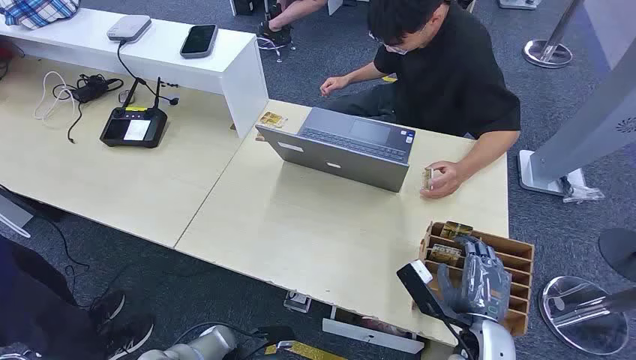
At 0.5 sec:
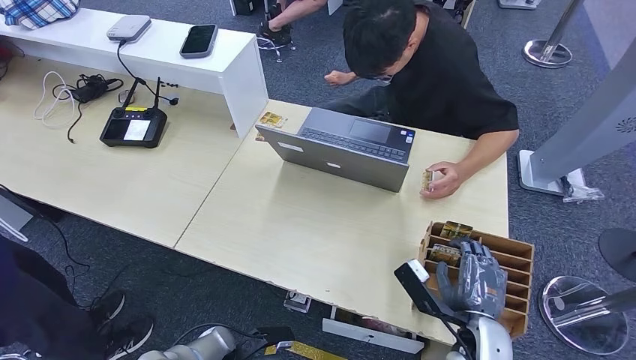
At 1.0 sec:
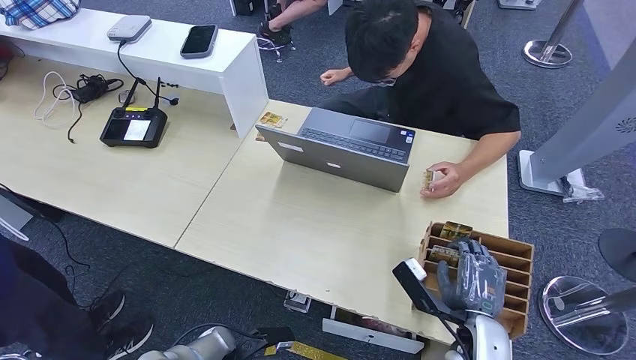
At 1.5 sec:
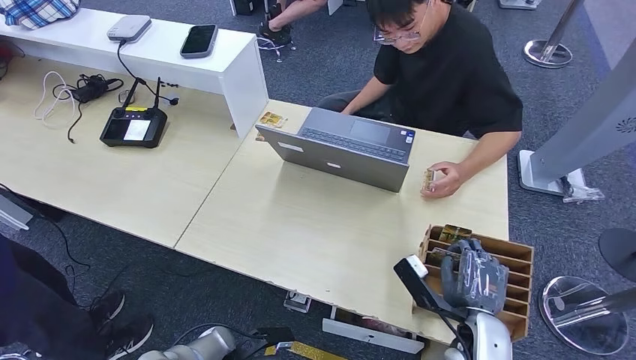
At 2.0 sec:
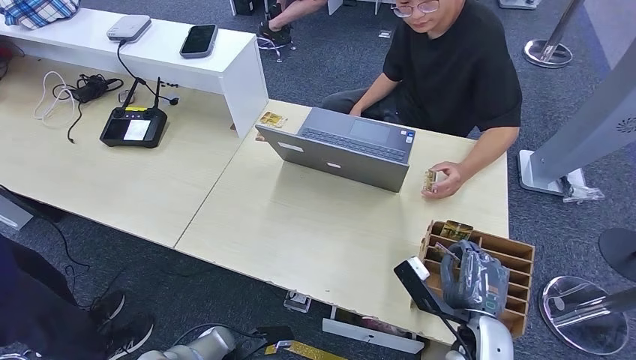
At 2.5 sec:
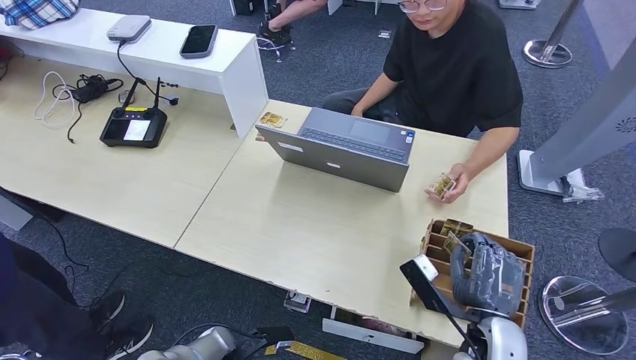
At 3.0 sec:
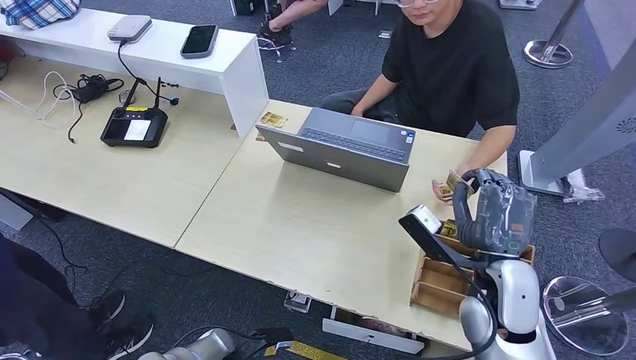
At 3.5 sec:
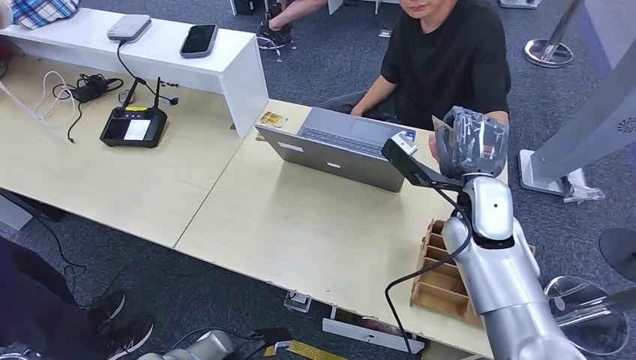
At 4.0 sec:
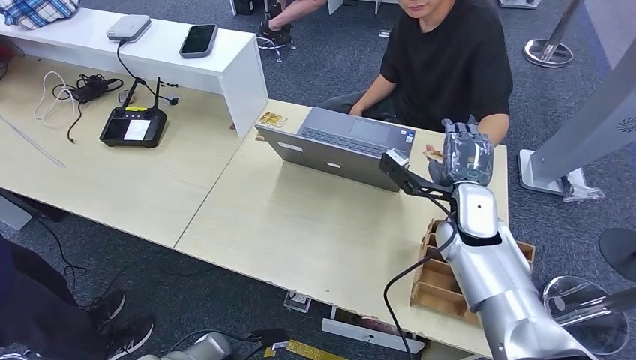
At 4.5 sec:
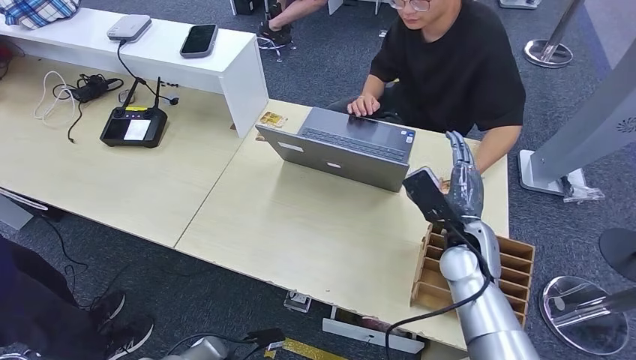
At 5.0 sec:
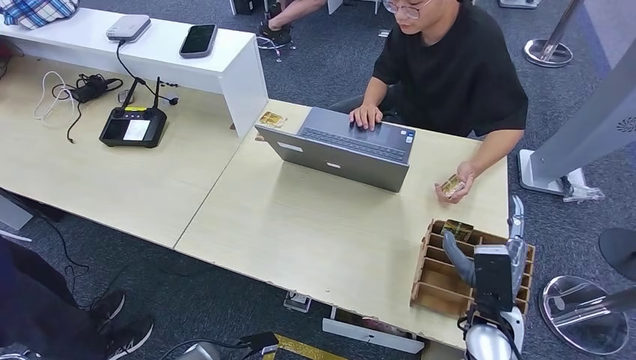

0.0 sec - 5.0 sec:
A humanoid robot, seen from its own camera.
Step, 0.0 sec - 2.5 sec: Pick up the key card from the card box.
Step, 3.0 sec - 5.0 sec: Hand the key card to the target.
2.5 sec - 5.0 sec: The right hand moves about 15 cm forward and comes back.
